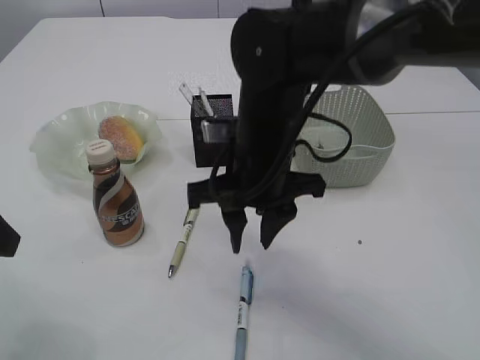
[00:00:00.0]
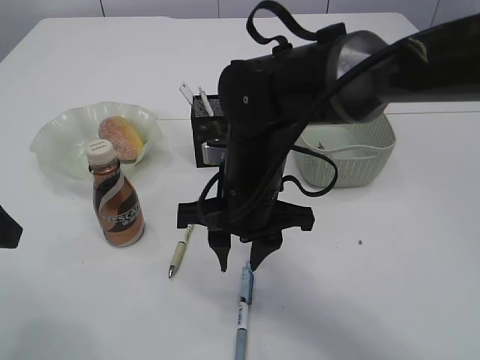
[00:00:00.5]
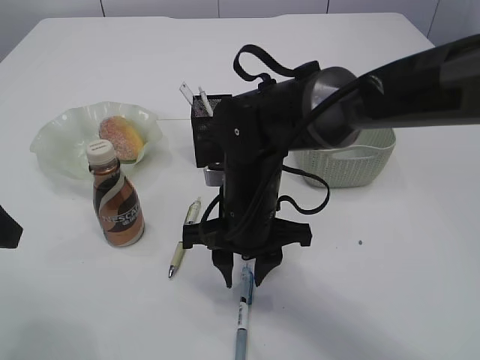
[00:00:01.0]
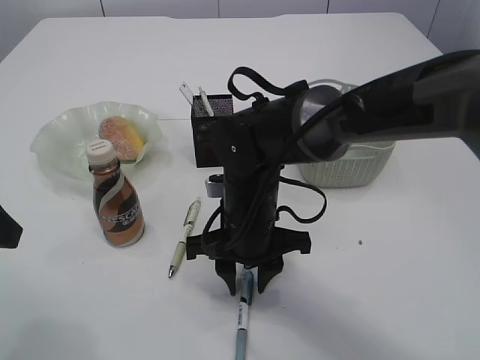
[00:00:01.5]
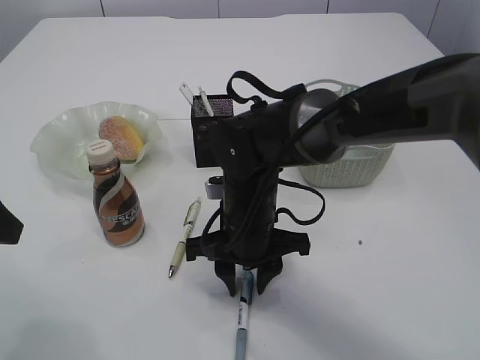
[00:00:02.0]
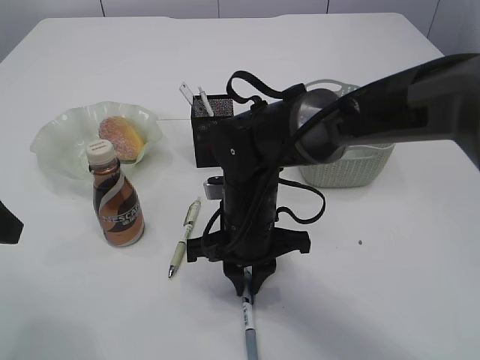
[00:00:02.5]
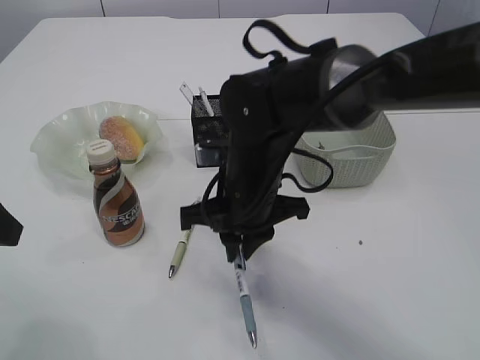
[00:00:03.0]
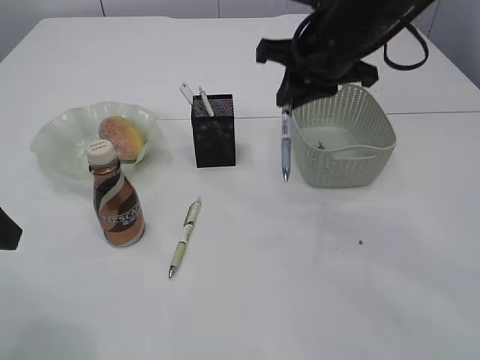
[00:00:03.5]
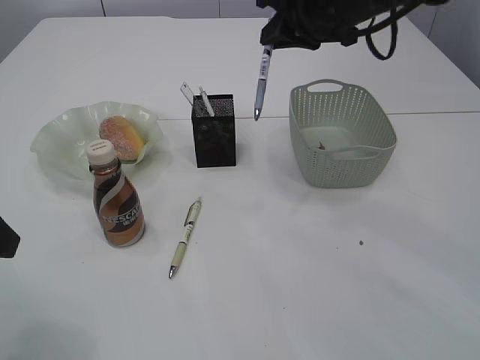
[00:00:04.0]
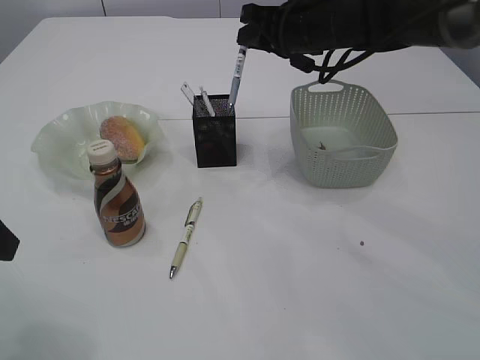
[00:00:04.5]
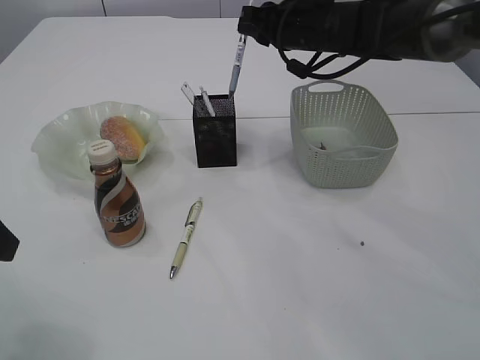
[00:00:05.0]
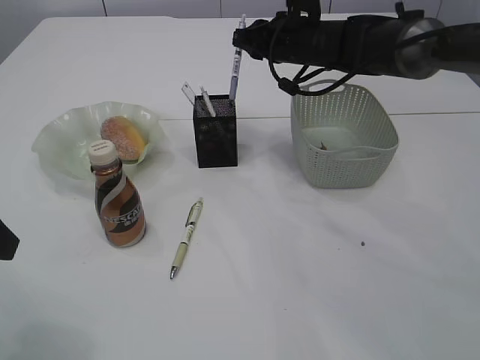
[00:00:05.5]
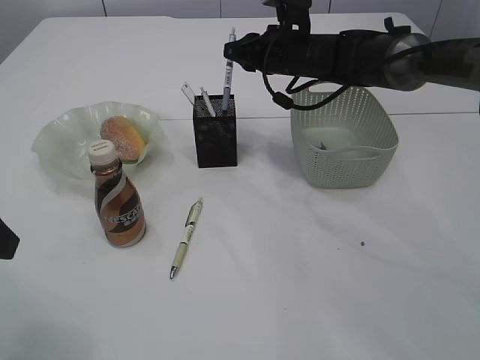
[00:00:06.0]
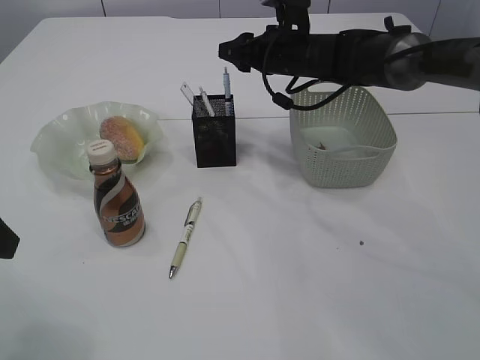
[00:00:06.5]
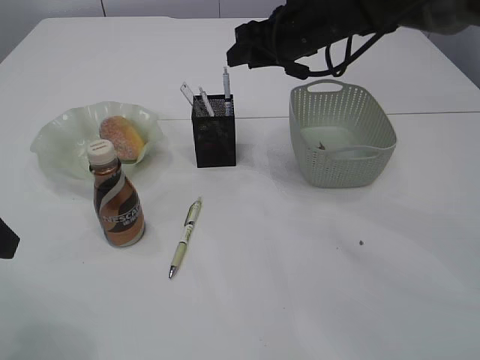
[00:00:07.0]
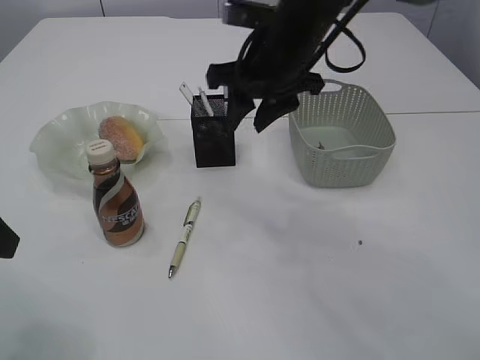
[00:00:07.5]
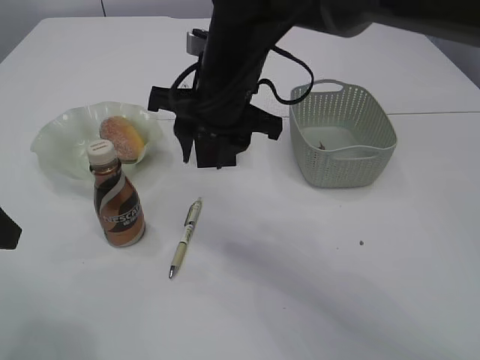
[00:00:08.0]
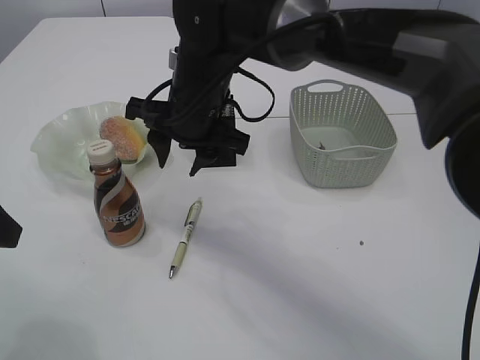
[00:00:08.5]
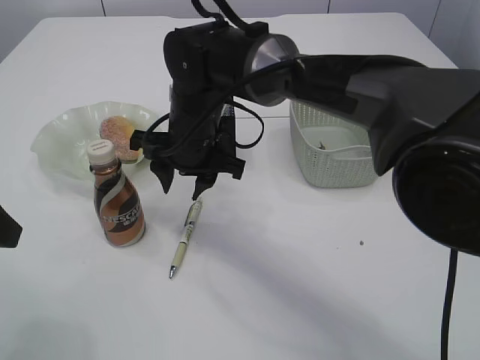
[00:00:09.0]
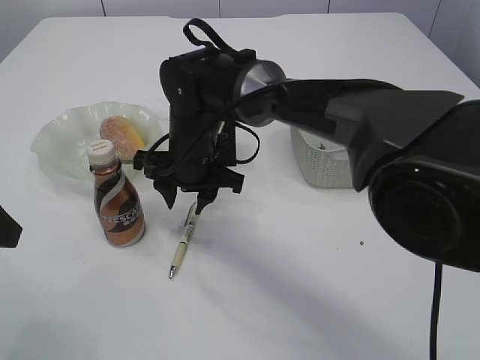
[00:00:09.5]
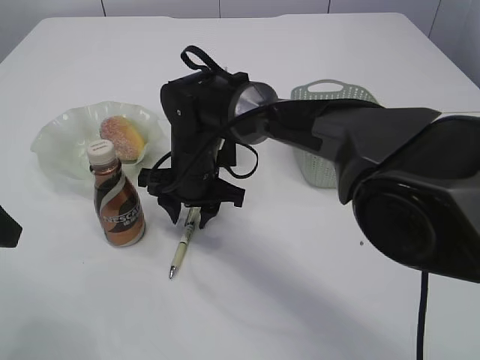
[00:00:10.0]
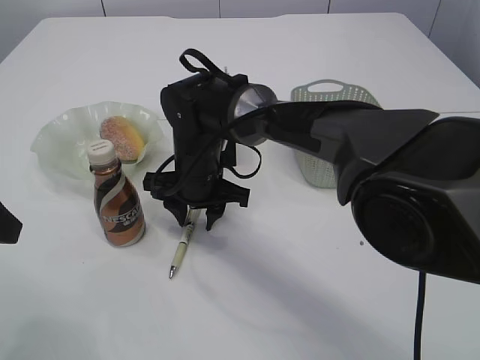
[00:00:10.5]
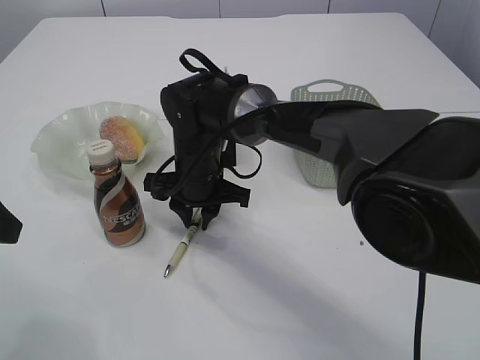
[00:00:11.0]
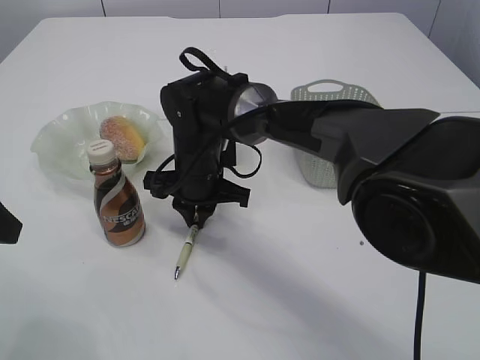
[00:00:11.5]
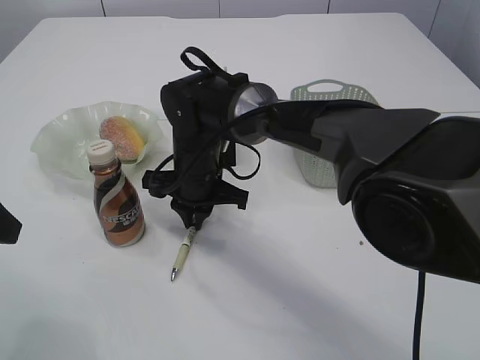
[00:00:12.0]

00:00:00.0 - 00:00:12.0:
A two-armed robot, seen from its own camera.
Step, 00:00:00.0 - 00:00:03.0: Pick up the pen with right arm.
Step, 00:00:03.5 - 00:00:06.5: Place the pen into the pen holder.
00:00:00.0 - 00:00:02.0: The right gripper heads downward, covering roughly 10 cm.
00:00:02.0 - 00:00:04.0: The right gripper shifts approximately 25 cm upward, forward and to the right, and closes up.
00:00:04.0 - 00:00:06.0: The right gripper travels downward and forward by approximately 15 cm.
00:00:06.0 - 00:00:08.0: The right gripper shifts approximately 20 cm backward and to the left, and opens.
00:00:08.0 - 00:00:10.0: The right gripper shifts about 15 cm downward.
00:00:10.0 - 00:00:12.0: The right gripper closes its fingers.

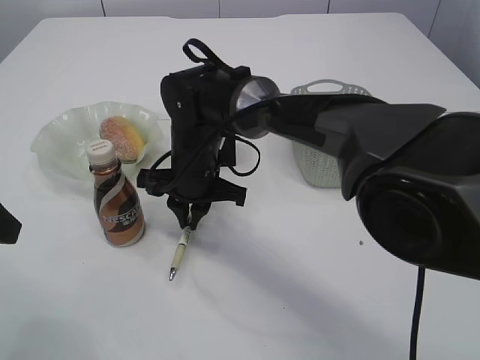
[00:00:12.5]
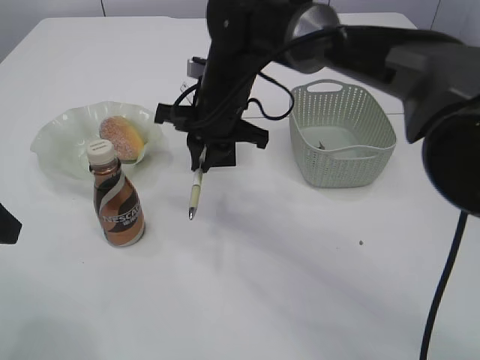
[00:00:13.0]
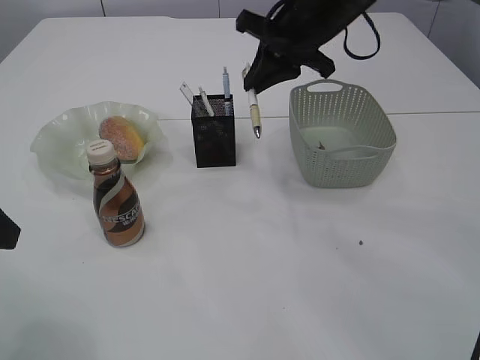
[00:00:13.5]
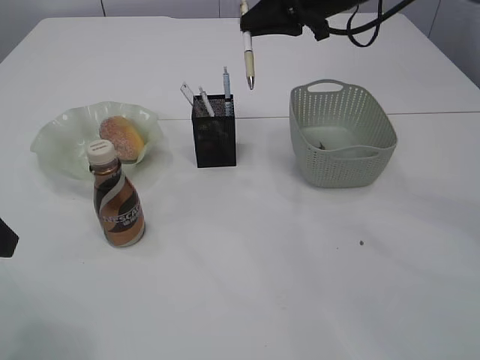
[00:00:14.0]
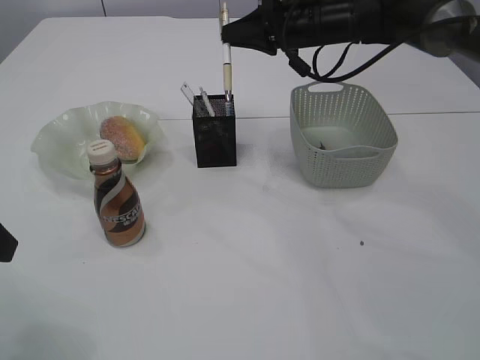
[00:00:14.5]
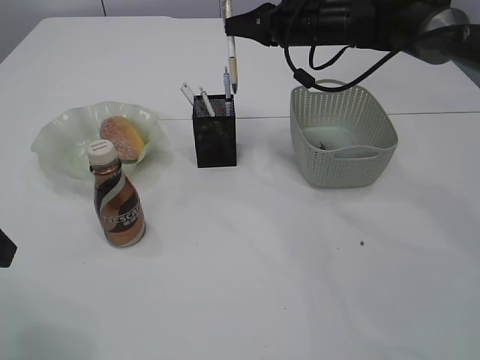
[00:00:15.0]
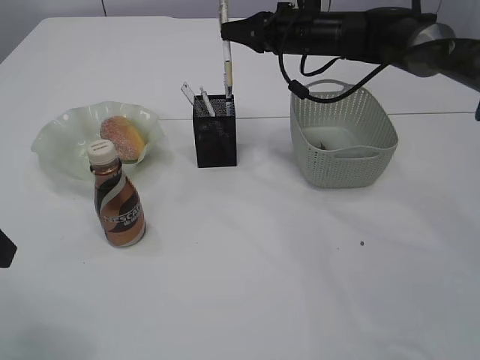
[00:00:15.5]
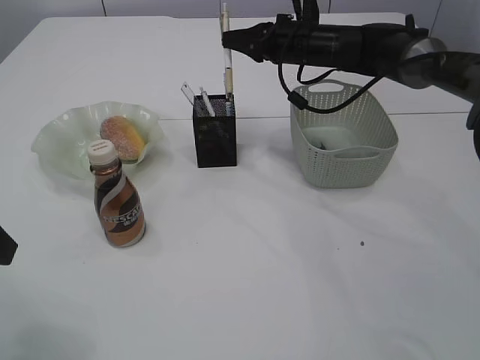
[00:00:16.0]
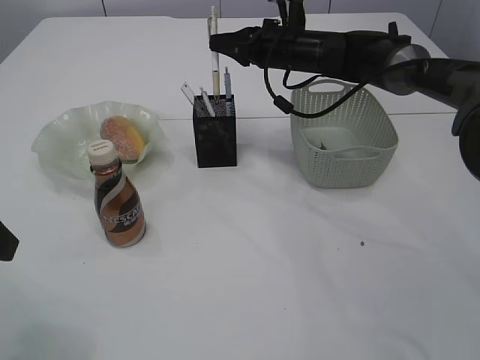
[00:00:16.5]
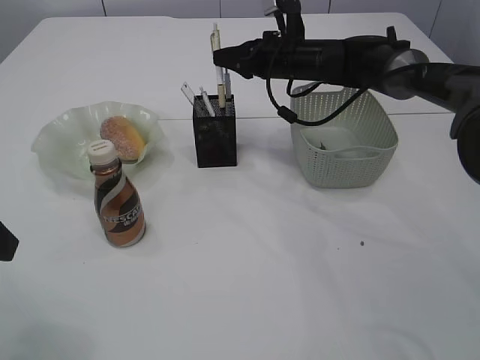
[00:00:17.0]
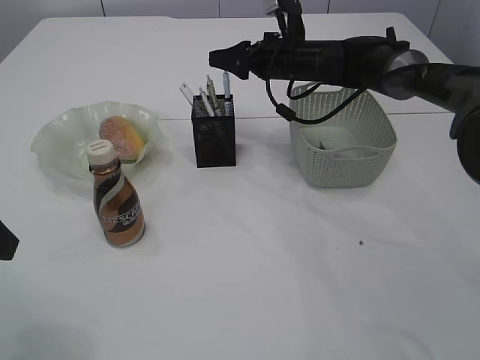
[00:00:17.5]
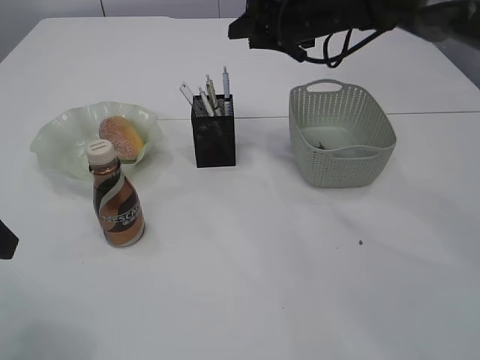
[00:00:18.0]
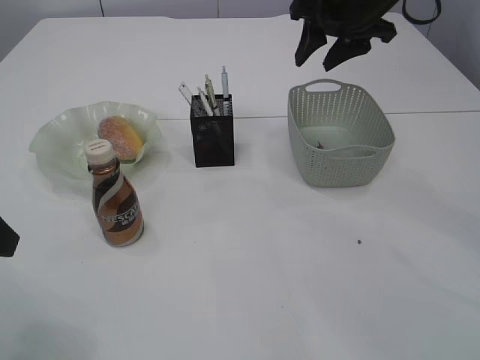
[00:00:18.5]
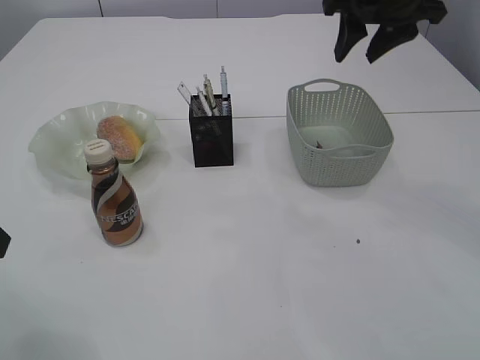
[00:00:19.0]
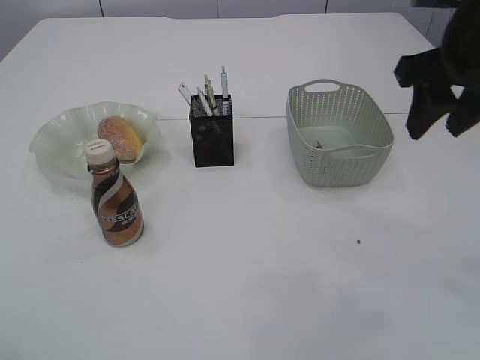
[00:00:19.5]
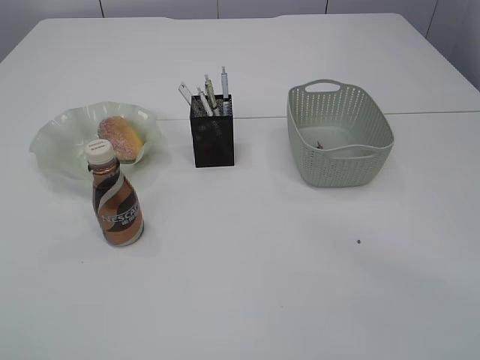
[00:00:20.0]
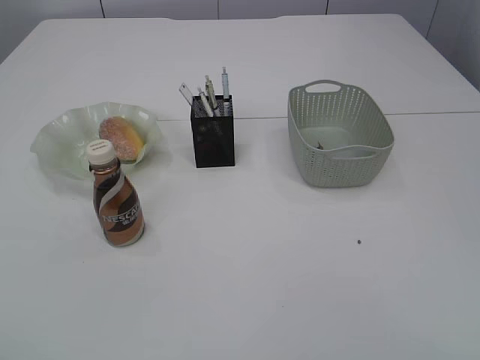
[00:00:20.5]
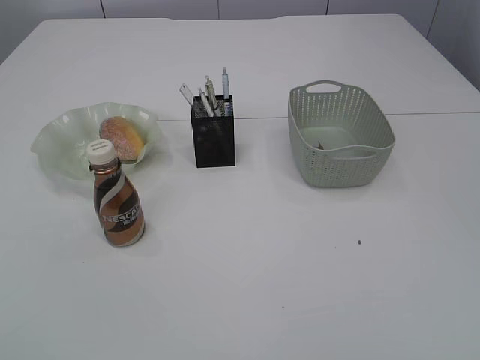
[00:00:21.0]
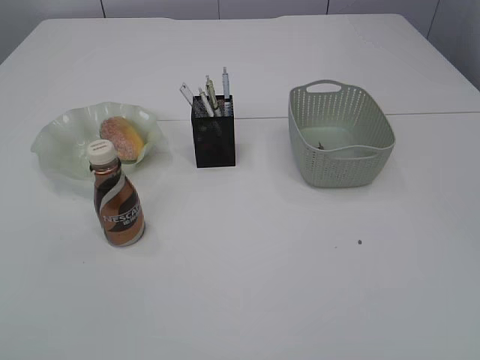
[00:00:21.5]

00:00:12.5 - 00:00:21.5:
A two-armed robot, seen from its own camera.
Step, 00:00:13.5 - 00:00:17.5: Place the pen into the pen holder.
00:00:12.5 - 00:00:14.5: The right gripper travels to the right, upward and forward by roughly 25 cm.
00:00:14.5 - 00:00:17.0: The right gripper is displaced downward by about 5 cm.
00:00:17.0 - 00:00:19.5: The right gripper moves backward, upward and to the right, approximately 30 cm, and opens its fingers, while the left gripper shifts by about 5 cm.
00:00:19.5 - 00:00:21.5: The left gripper goes about 20 cm backward. The right gripper is displaced backward by about 35 cm.

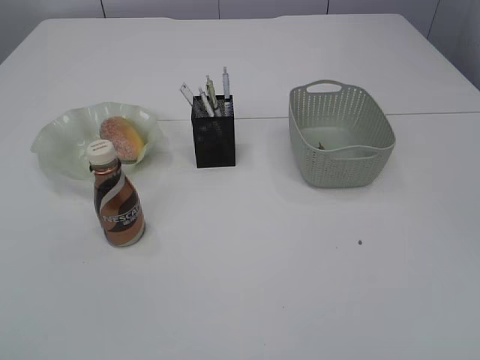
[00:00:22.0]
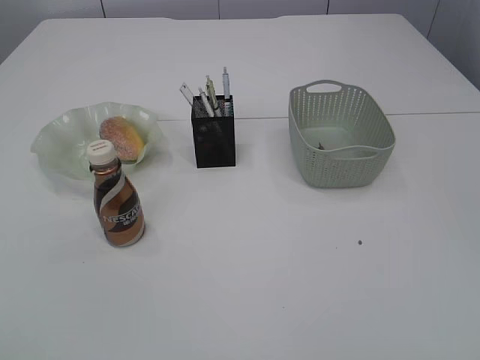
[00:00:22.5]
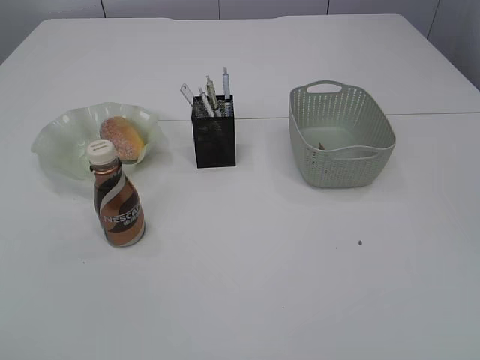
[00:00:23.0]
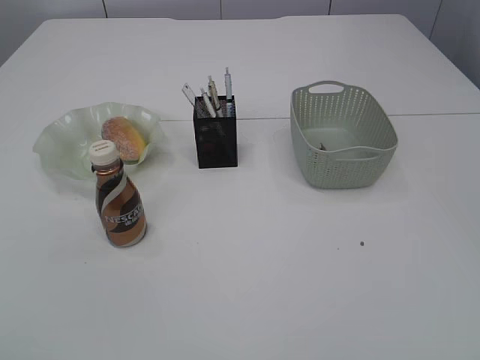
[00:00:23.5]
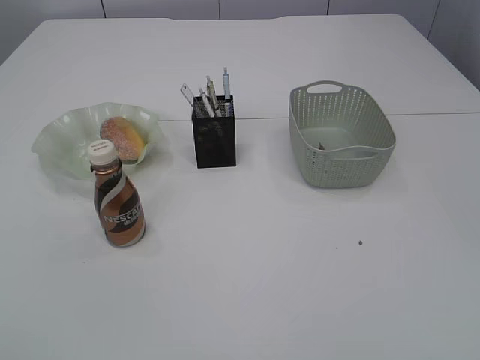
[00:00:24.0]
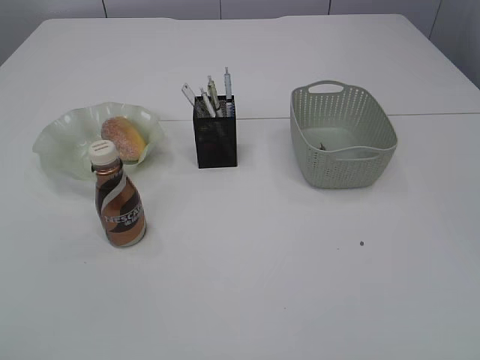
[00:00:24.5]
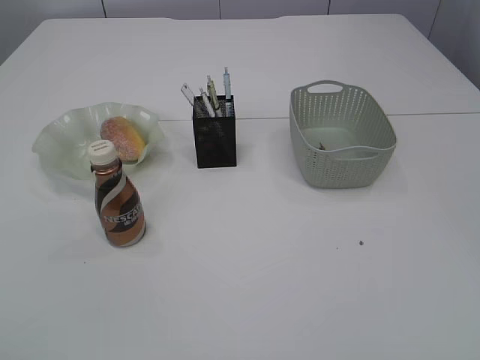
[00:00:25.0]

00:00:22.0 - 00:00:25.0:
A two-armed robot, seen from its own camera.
00:00:22.0 - 00:00:23.5: The left gripper opens up.
